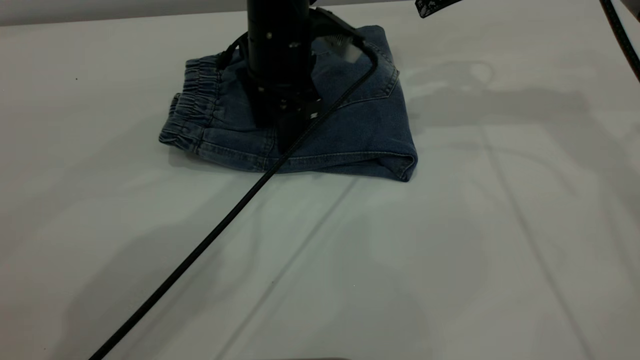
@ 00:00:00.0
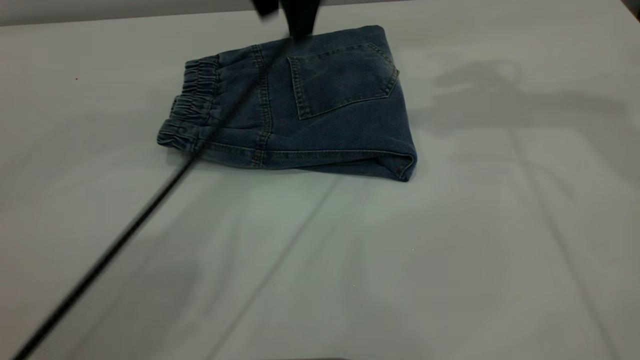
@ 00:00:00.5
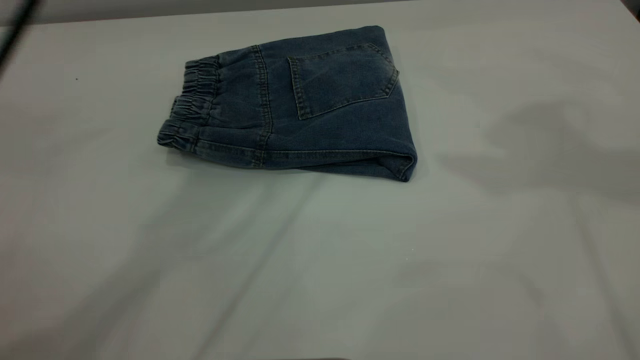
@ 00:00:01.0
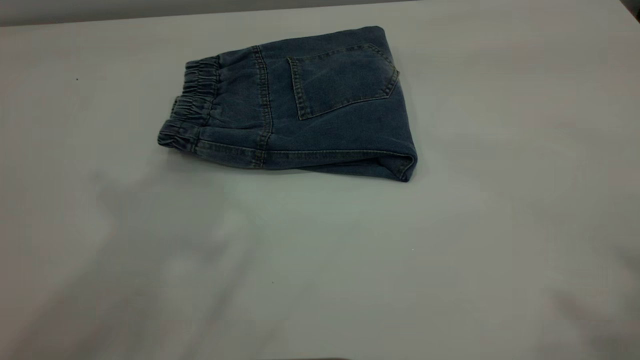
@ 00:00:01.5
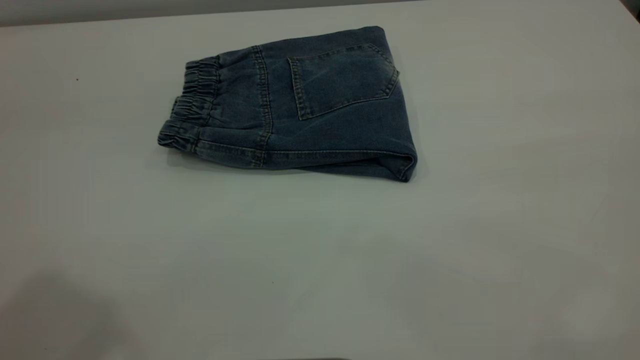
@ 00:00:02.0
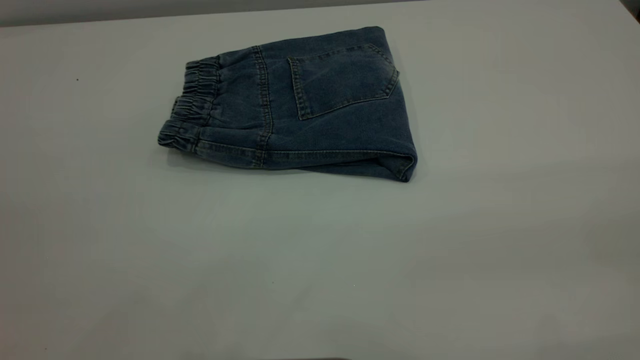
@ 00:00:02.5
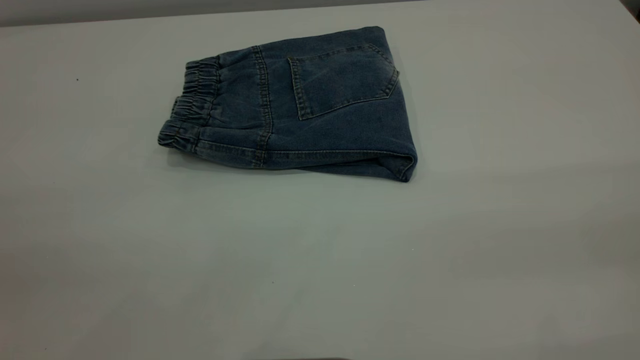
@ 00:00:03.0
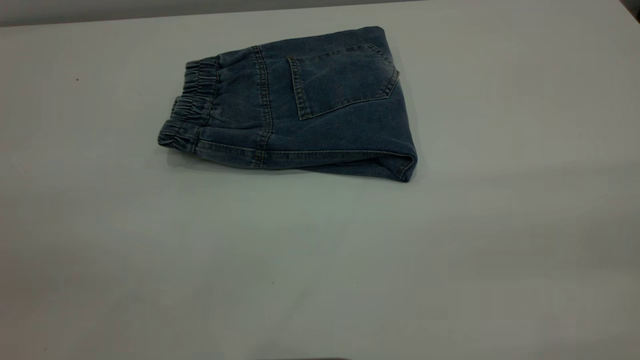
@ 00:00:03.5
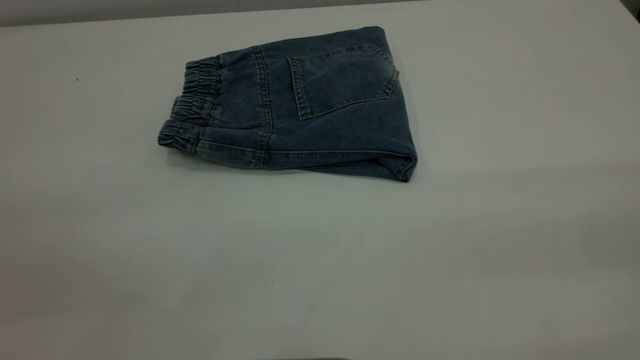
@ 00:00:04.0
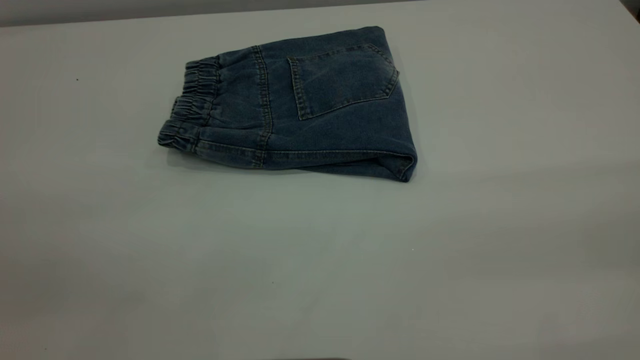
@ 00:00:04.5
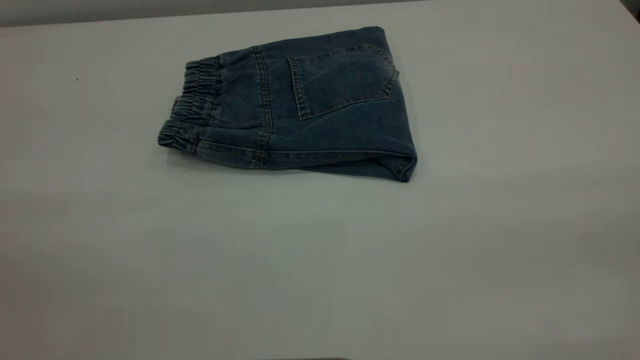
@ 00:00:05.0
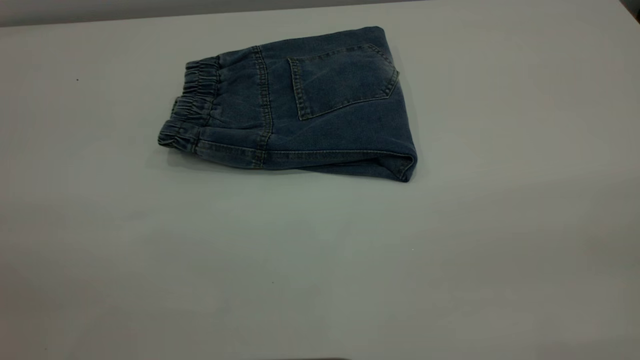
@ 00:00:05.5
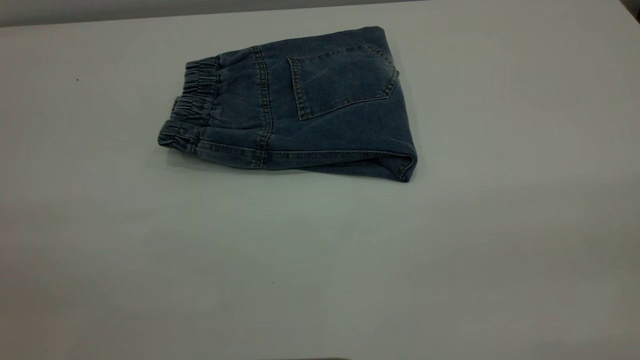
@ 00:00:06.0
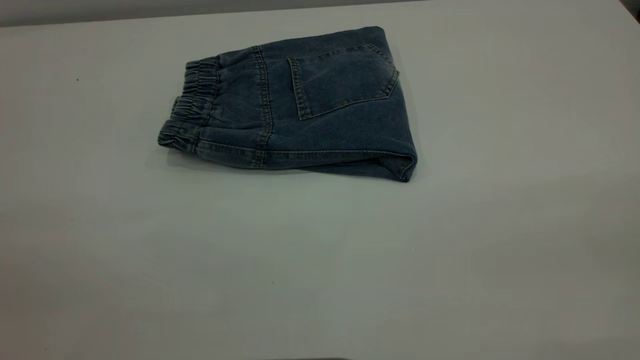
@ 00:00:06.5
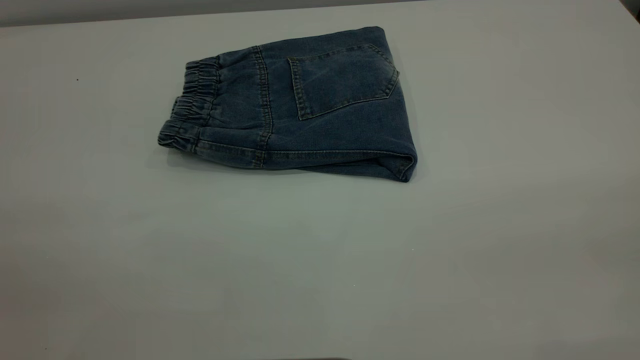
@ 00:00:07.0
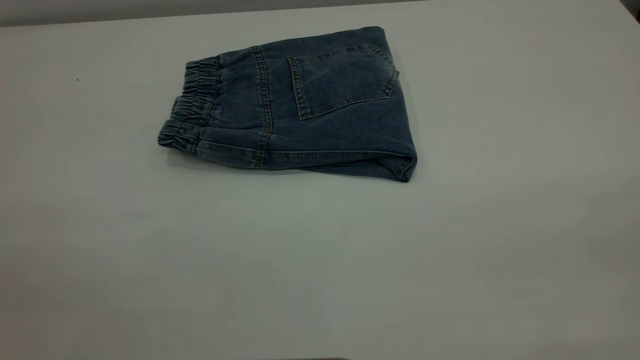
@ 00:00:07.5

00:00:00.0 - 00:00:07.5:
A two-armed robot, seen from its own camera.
00:00:00.0 - 00:00:02.0: The left gripper goes about 50 cm upward, backward and to the left, while the right gripper heads backward and upward, covering roughly 50 cm.

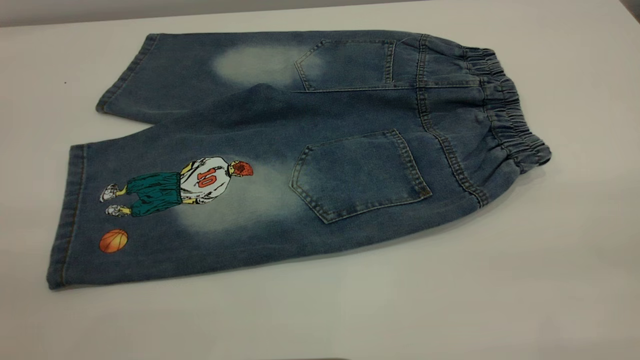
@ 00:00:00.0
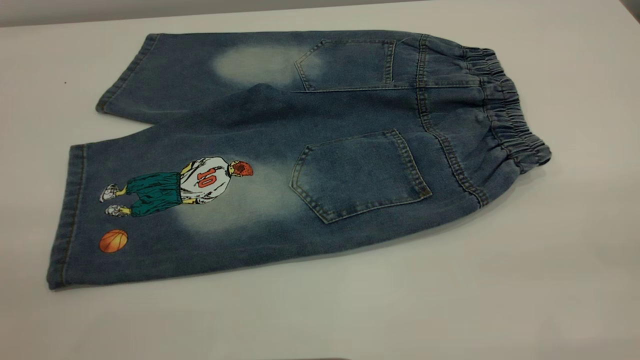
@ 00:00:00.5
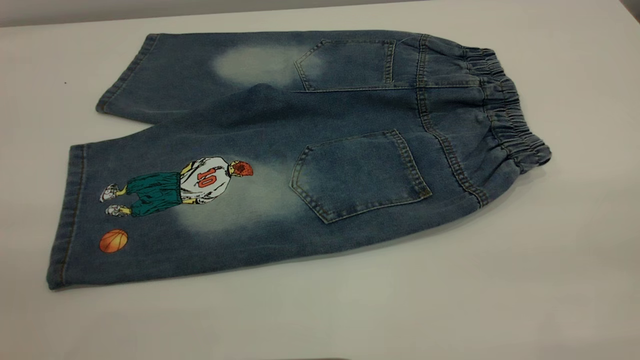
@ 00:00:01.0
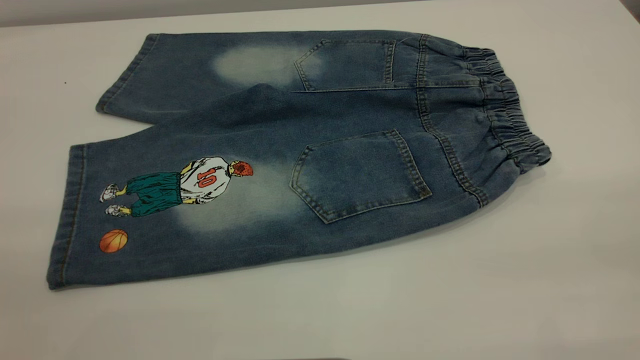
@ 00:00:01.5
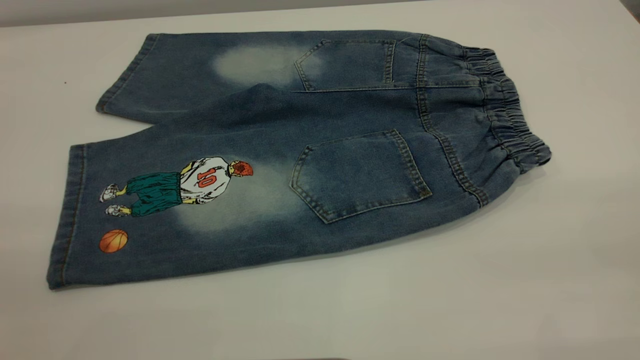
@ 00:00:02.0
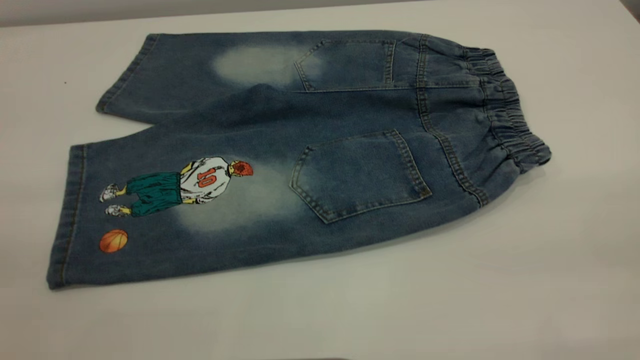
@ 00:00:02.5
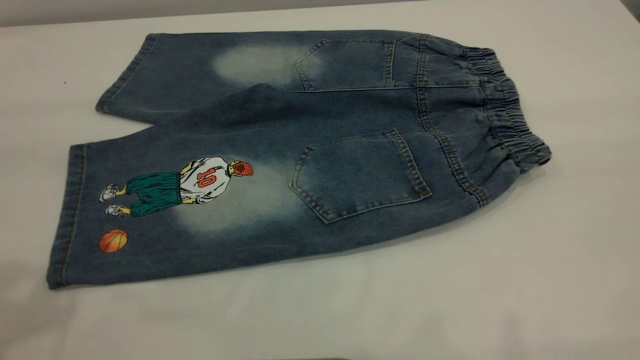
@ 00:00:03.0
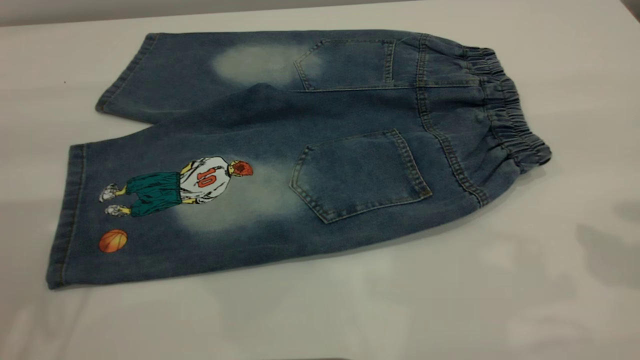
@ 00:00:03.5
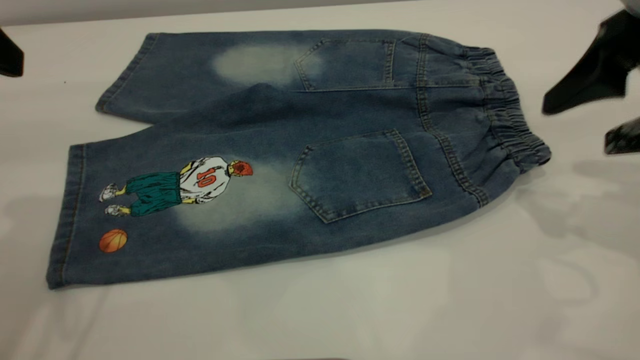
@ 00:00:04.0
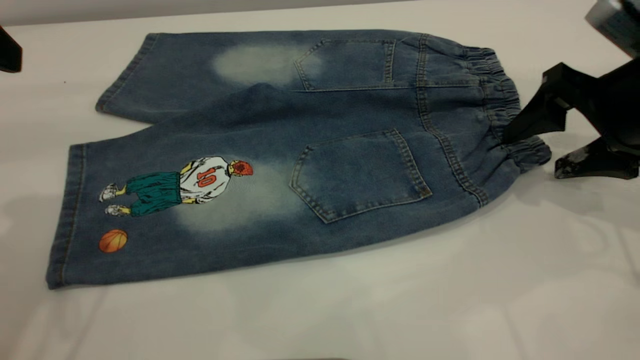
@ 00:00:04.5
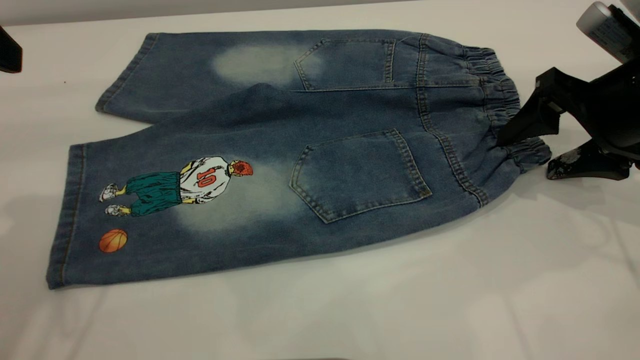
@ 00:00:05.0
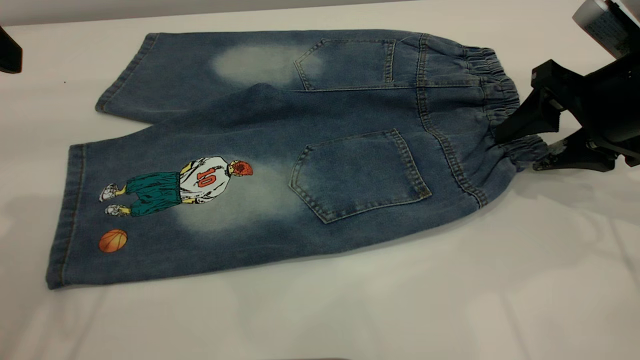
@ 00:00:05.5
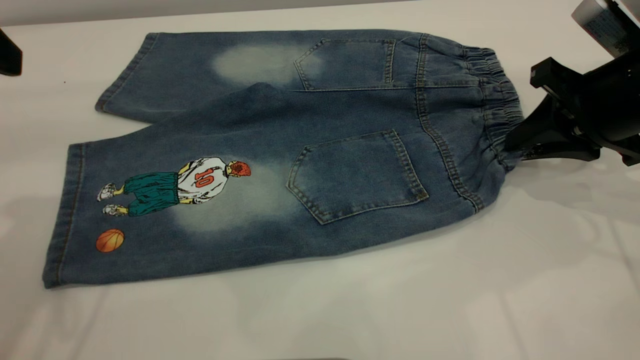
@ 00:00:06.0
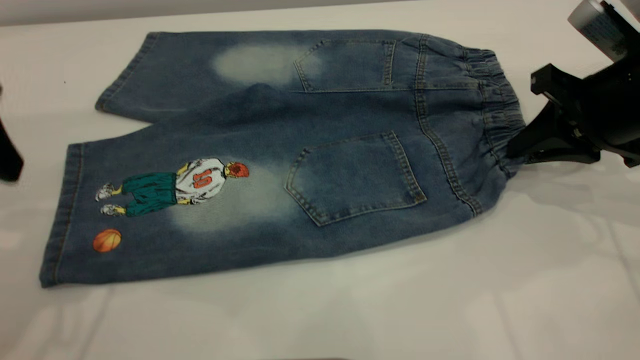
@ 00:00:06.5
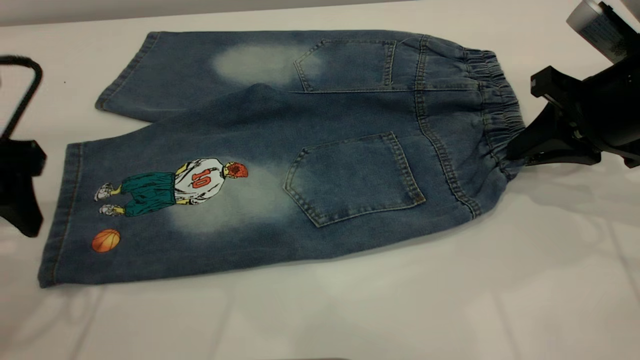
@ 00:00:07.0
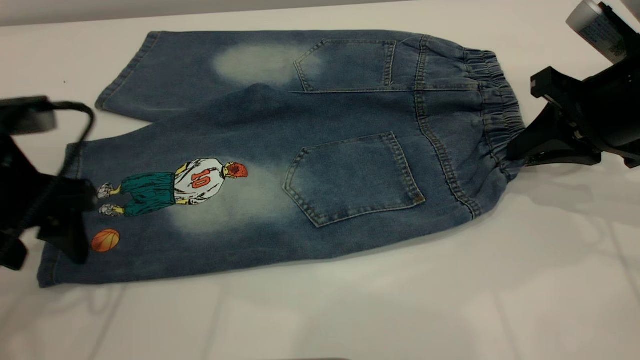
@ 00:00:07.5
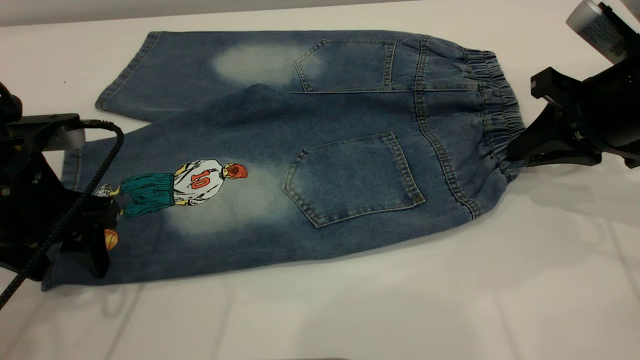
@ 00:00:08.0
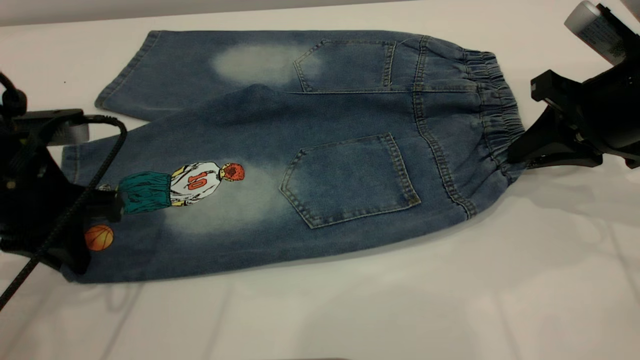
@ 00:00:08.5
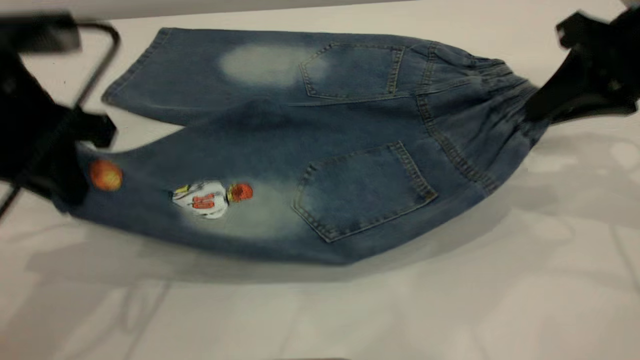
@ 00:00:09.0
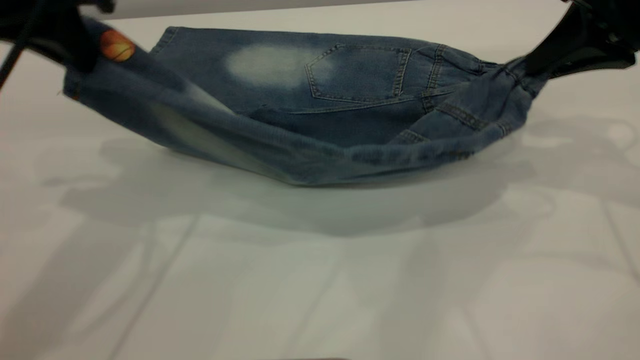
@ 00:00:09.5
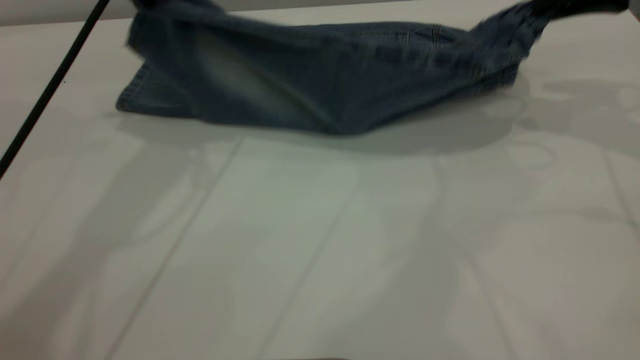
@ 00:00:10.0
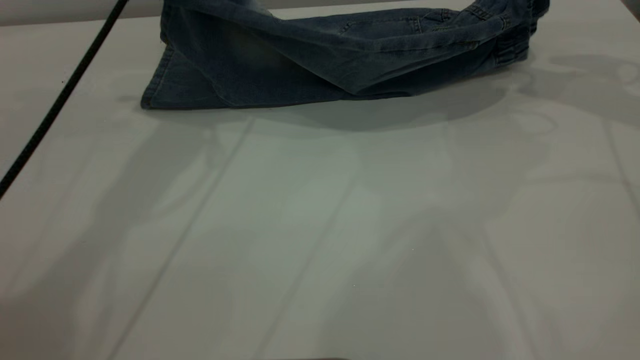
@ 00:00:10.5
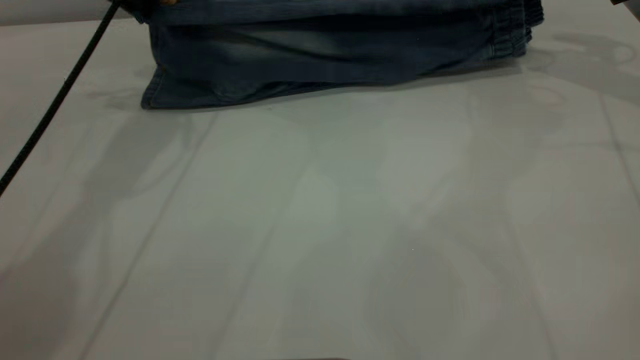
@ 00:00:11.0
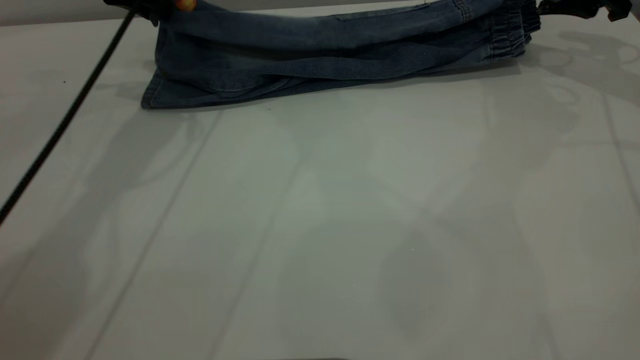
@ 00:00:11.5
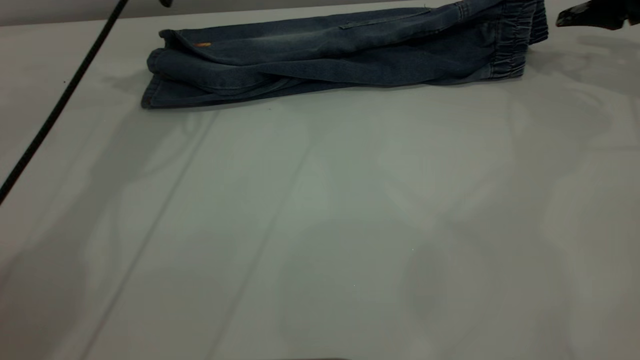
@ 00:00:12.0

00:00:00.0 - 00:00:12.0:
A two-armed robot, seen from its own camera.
00:00:00.0 - 00:00:02.0: The two grippers keep their place.
00:00:02.0 - 00:00:04.0: The right gripper shifts some 30 cm forward and downward, and opens.
00:00:04.0 - 00:00:06.0: The right gripper goes roughly 10 cm downward and forward, and closes.
00:00:06.0 - 00:00:08.0: The left gripper shifts approximately 15 cm downward.
00:00:08.0 - 00:00:10.0: The right gripper heads upward and forward, covering roughly 15 cm. The left gripper heads upward, forward and to the right, covering roughly 25 cm, and closes.
00:00:10.0 - 00:00:12.0: The right gripper moves forward, to the right and downward, some 10 cm, and opens its fingers; the left gripper shifts about 10 cm forward, and opens.
